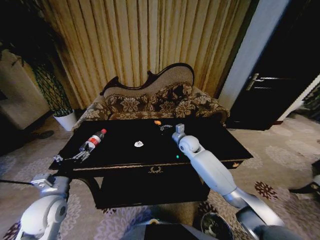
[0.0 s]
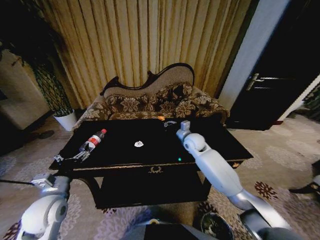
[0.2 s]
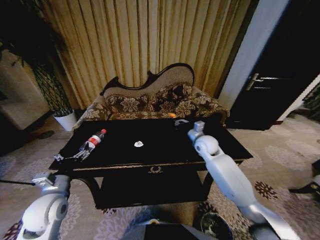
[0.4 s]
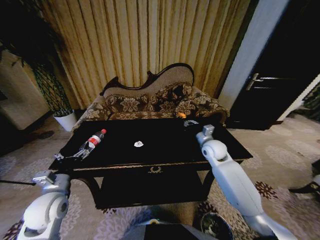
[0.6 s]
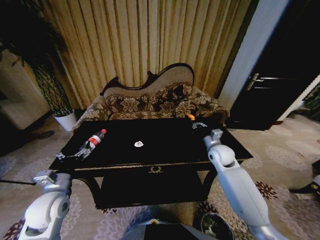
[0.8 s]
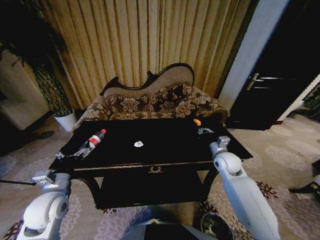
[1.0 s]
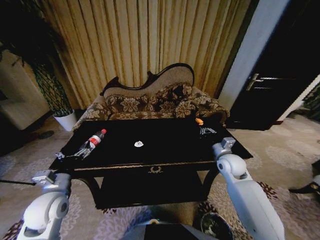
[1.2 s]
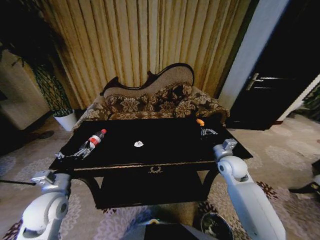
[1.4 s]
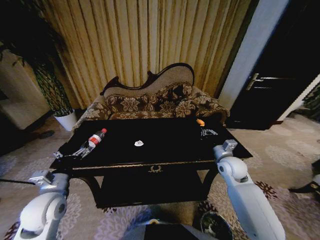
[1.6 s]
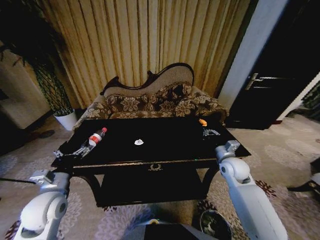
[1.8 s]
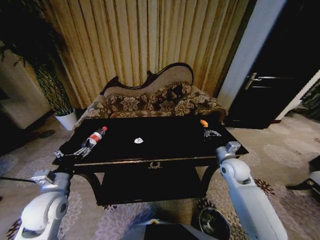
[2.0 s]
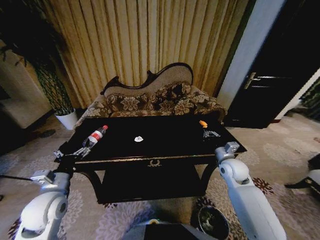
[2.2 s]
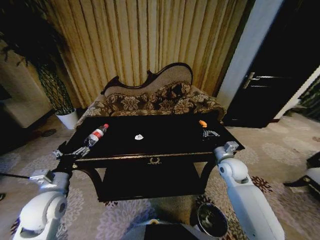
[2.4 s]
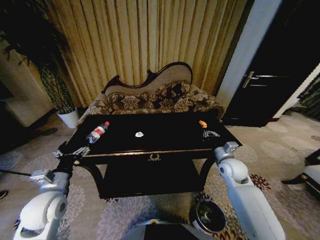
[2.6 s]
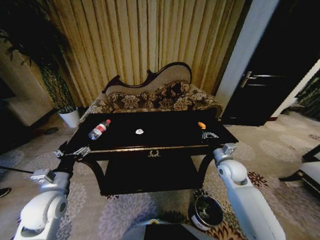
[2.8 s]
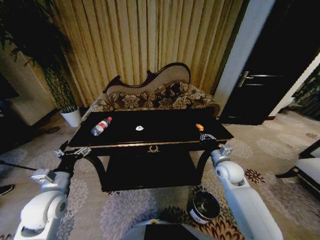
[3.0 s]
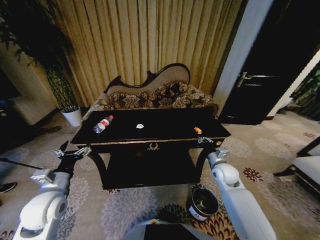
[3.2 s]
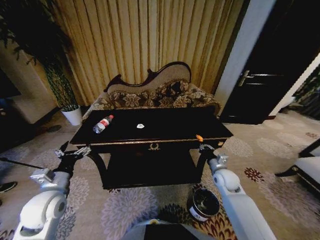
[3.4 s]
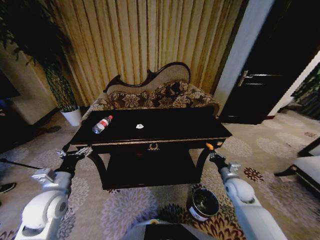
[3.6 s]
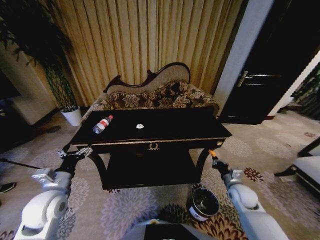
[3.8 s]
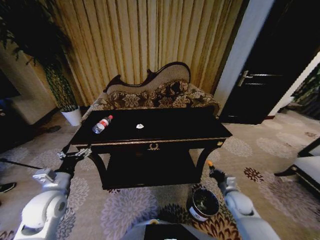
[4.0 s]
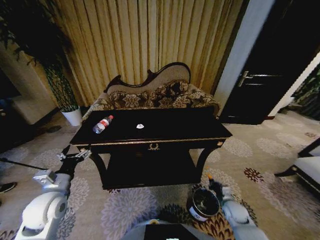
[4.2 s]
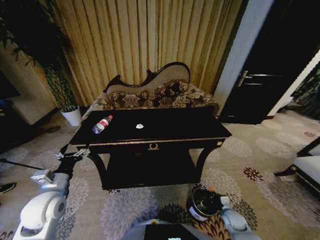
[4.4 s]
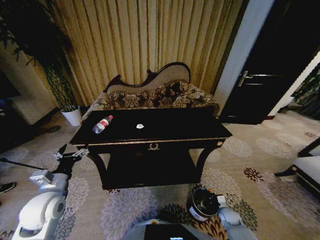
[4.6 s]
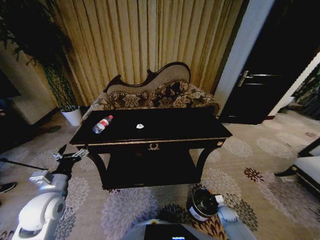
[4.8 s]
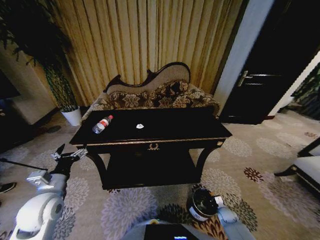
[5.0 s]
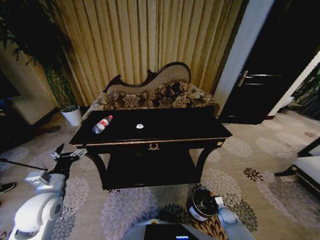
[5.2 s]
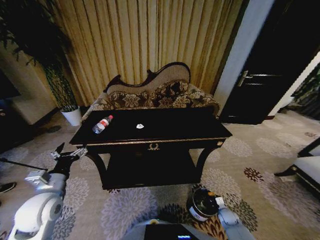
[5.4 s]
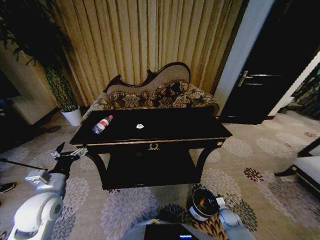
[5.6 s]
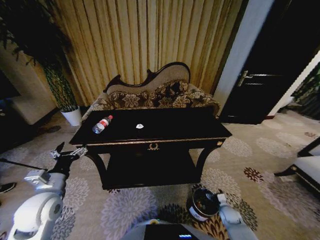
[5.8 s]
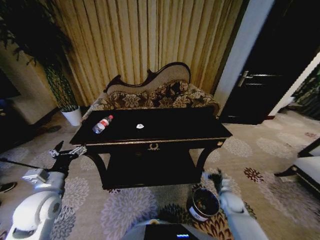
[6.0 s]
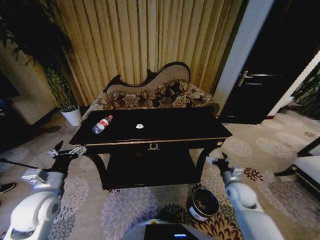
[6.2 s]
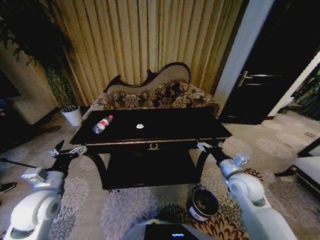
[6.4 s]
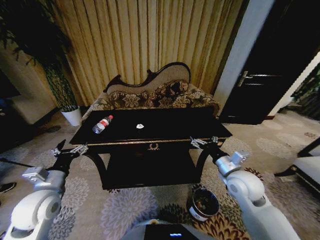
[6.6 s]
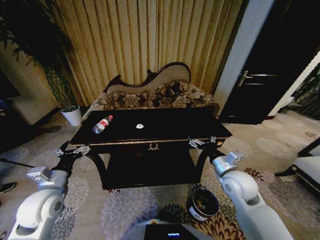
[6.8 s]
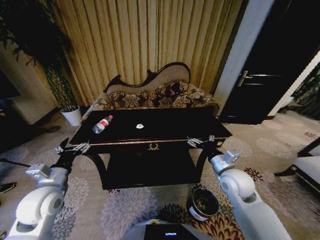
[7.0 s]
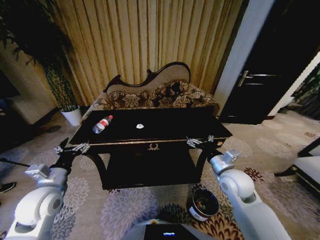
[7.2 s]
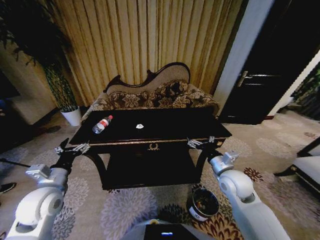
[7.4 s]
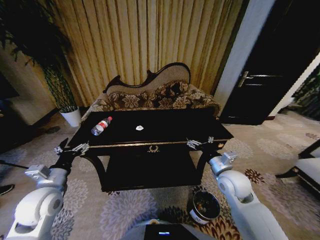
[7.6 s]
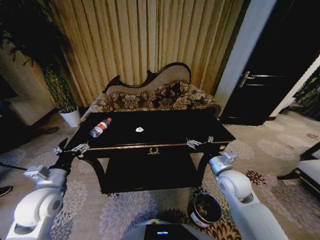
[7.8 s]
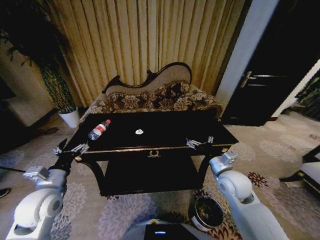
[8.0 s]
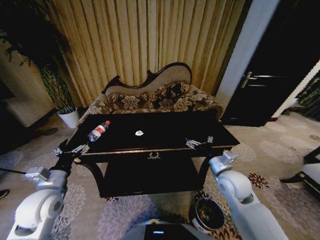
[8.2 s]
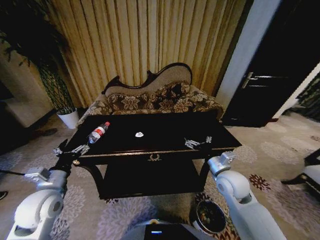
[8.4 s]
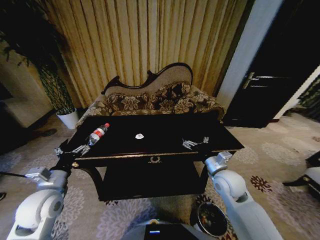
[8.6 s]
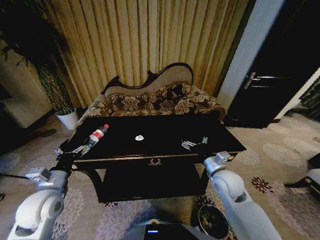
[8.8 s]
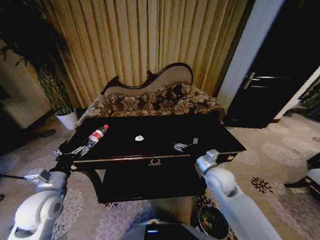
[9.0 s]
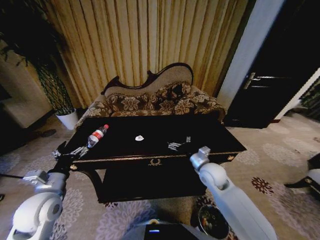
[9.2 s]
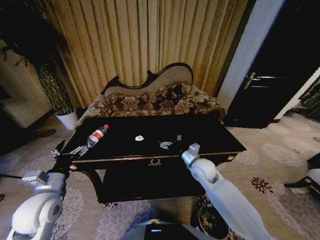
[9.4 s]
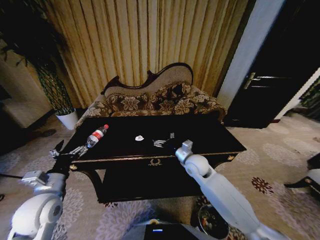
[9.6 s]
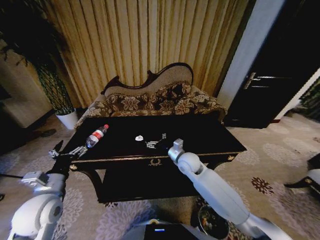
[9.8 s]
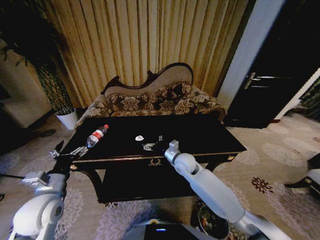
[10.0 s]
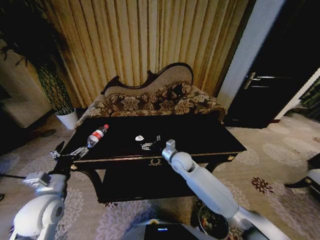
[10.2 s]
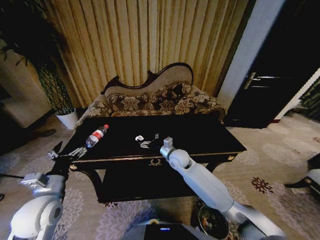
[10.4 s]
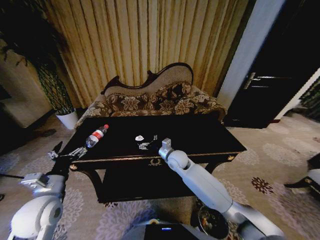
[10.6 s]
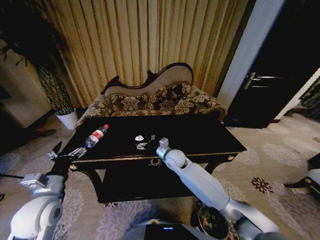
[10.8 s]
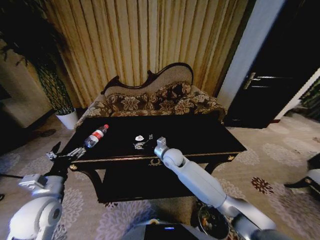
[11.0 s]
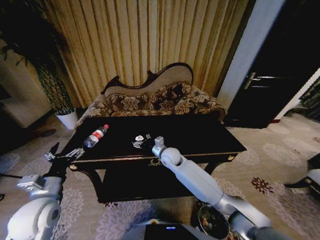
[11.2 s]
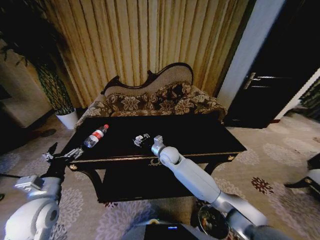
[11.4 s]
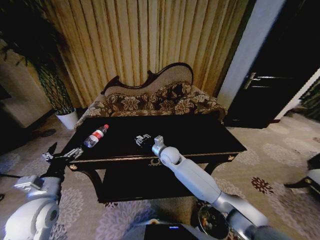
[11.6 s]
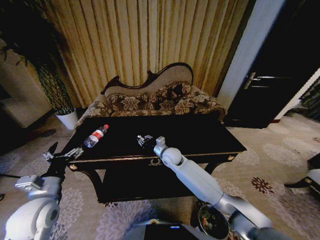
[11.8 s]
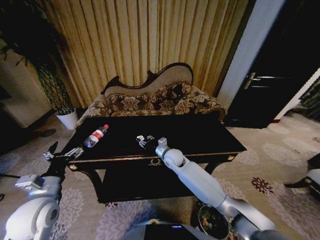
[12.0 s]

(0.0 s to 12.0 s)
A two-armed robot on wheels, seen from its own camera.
Task of the whole recording: Move to the front of the table and place the trash on the table into the trash bin.
0.0 s - 1.6 s: The right gripper is displaced to the right and backward by about 20 cm.
3.0 s - 4.4 s: The right gripper heads downward and backward, covering some 30 cm.
4.4 s - 6.0 s: The right gripper is displaced upward and forward by roughly 10 cm, and opens.
6.0 s - 7.6 s: The right gripper shifts some 25 cm upward and to the left.
9.0 s - 10.4 s: The right gripper travels to the left and forward by approximately 20 cm.
10.4 s - 12.0 s: The right gripper closes up.

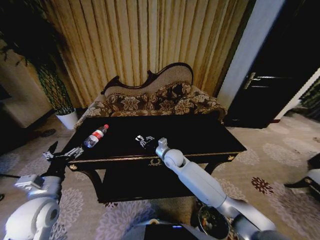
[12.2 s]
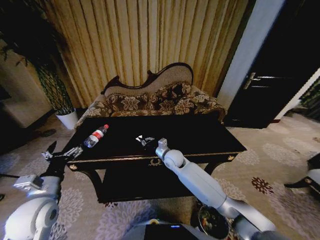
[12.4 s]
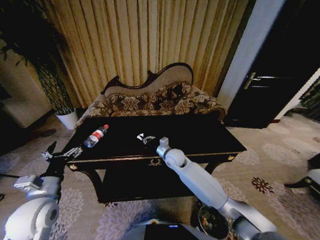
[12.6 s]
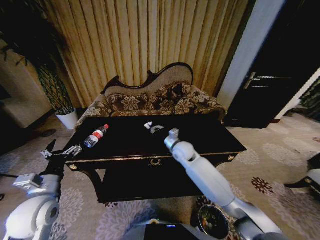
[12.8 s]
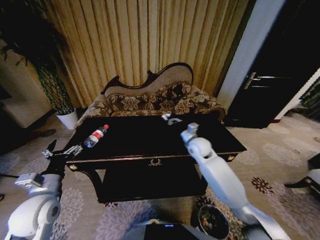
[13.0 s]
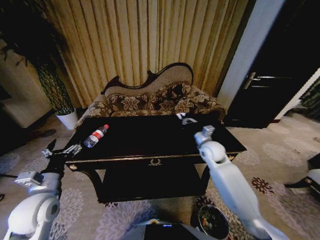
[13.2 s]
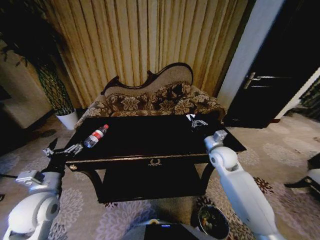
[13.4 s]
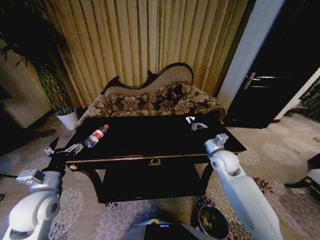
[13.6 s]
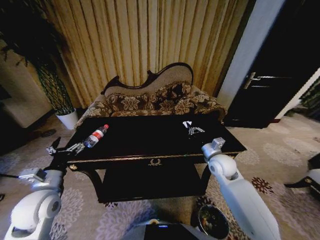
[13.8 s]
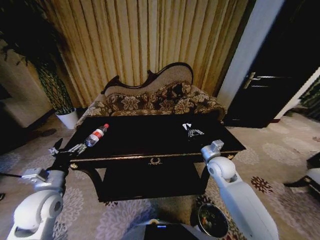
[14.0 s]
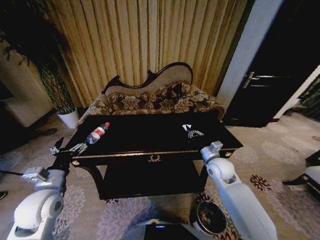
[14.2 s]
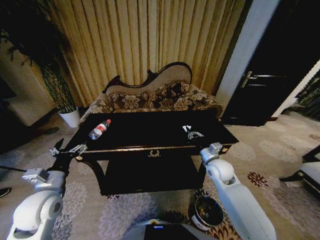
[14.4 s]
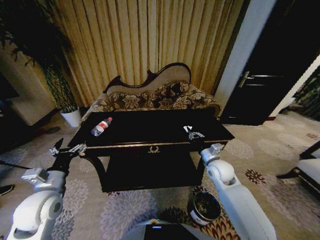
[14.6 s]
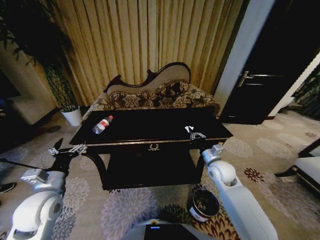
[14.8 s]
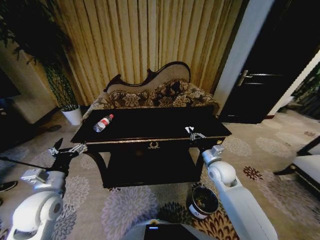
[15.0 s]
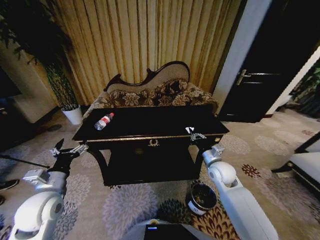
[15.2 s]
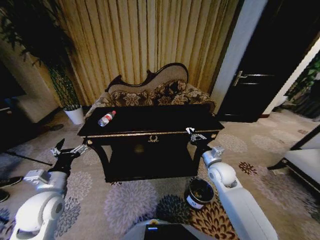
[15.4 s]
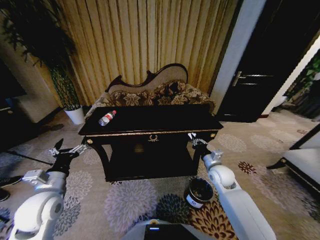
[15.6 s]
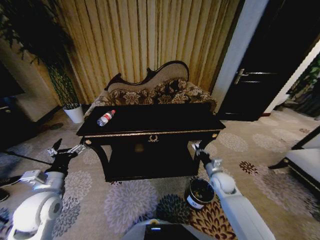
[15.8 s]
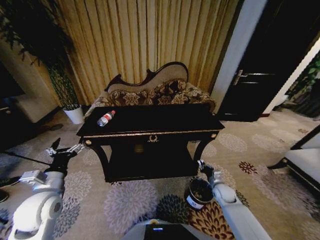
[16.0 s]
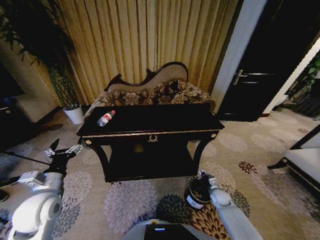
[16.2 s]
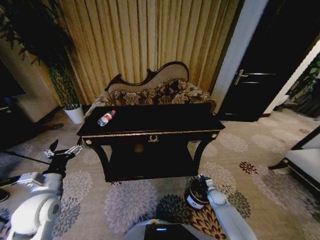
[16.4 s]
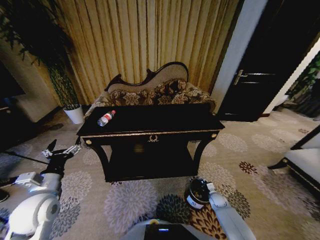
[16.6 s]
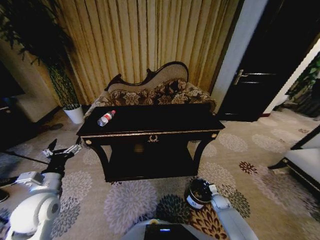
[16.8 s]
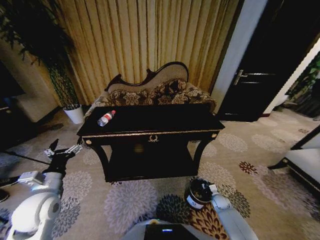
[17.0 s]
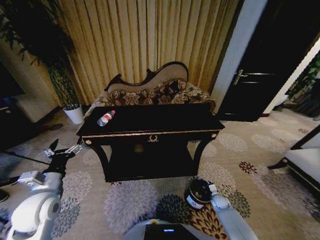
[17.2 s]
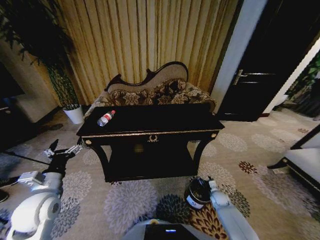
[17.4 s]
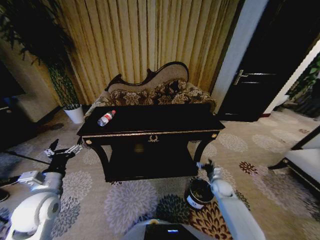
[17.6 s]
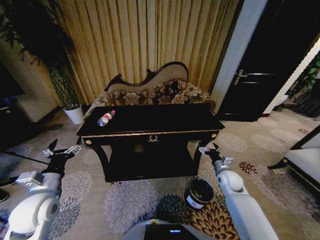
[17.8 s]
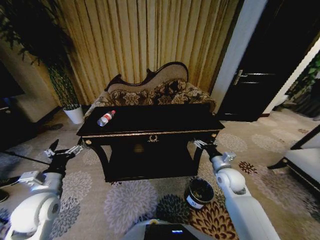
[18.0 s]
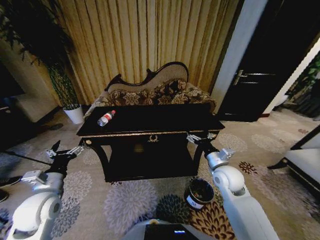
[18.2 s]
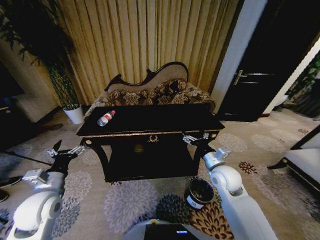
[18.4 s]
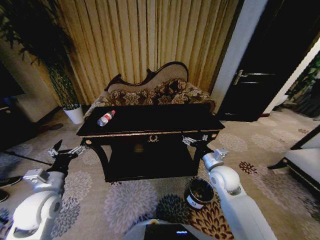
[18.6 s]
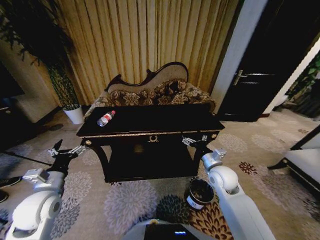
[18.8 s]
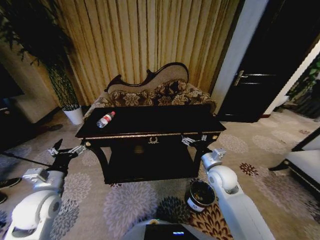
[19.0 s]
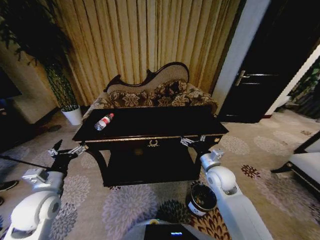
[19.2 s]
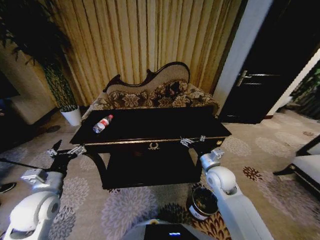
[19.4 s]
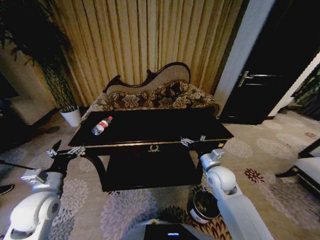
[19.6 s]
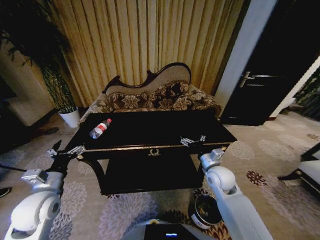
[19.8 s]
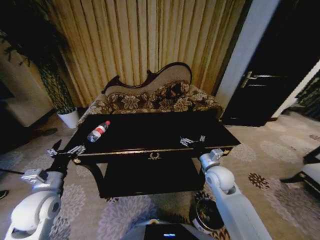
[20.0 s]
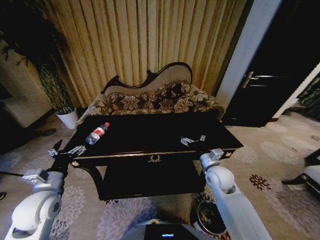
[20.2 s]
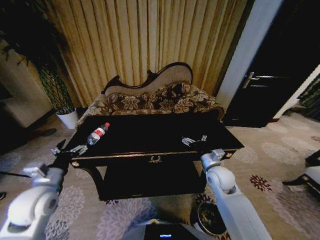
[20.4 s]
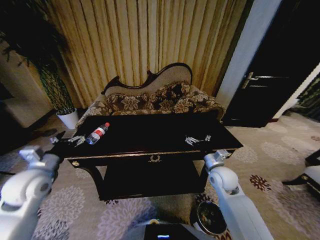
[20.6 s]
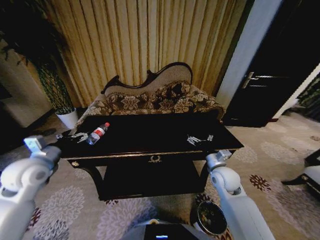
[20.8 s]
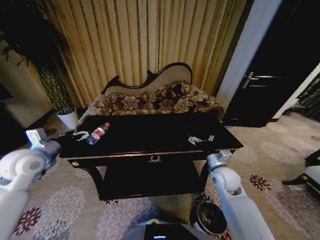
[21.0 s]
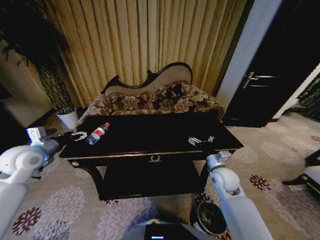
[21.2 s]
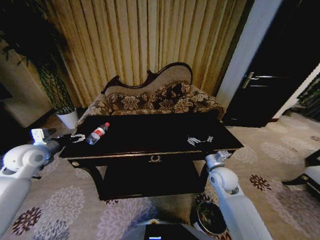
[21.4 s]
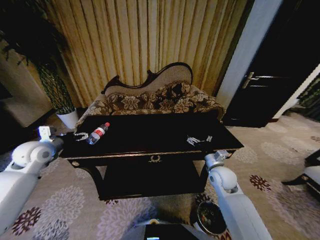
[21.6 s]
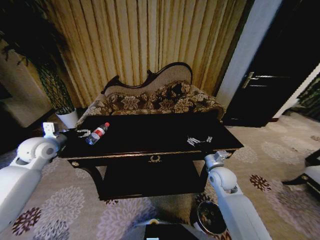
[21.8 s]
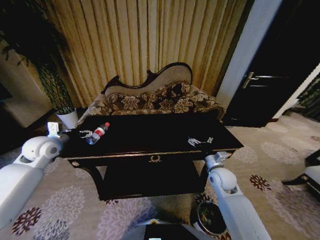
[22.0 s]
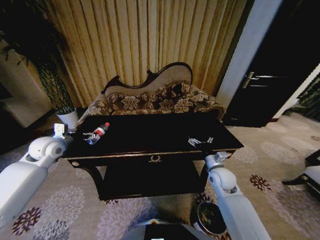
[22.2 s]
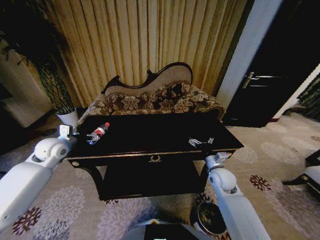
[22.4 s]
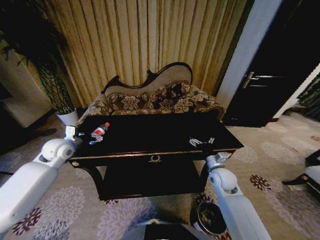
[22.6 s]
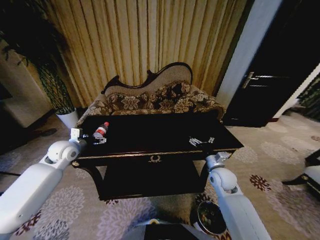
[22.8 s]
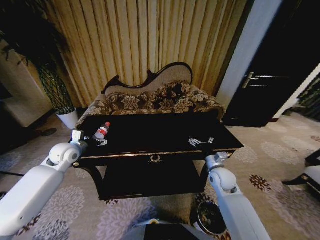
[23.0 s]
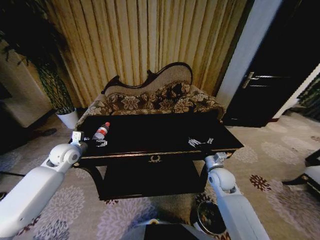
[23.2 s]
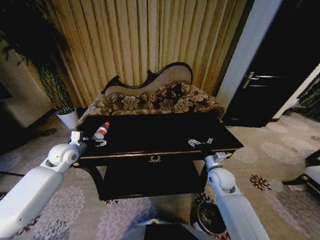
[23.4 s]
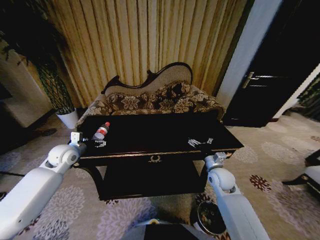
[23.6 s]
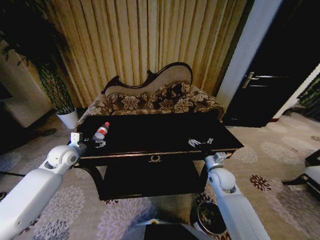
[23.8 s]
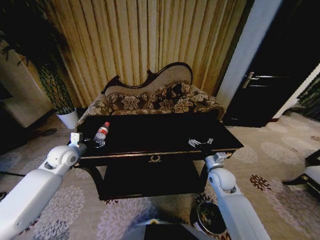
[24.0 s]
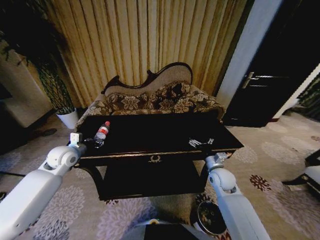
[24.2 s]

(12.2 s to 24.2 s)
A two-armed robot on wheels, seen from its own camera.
Task of the whole recording: Move to the front of the table and place the trash on the table into the trash bin.
12.2 s - 13.8 s: The right gripper is displaced to the right by some 20 cm.
15.2 s - 16.6 s: The right gripper heads downward, covering about 30 cm.
16.6 s - 18.2 s: The right gripper moves upward, about 35 cm, and opens.
19.8 s - 21.2 s: The left gripper shifts approximately 15 cm forward, upward and to the left.
21.2 s - 22.6 s: The left gripper heads forward, covering roughly 5 cm.
22.6 s - 24.2 s: The left gripper closes up.
